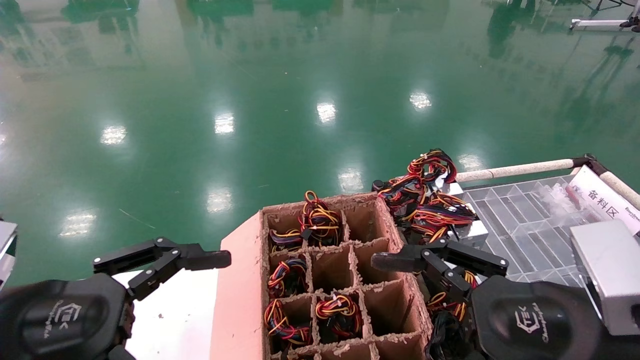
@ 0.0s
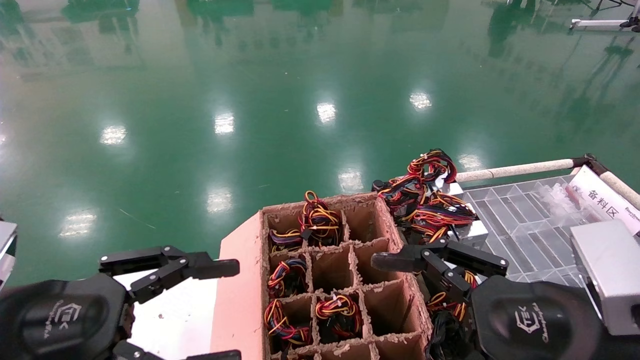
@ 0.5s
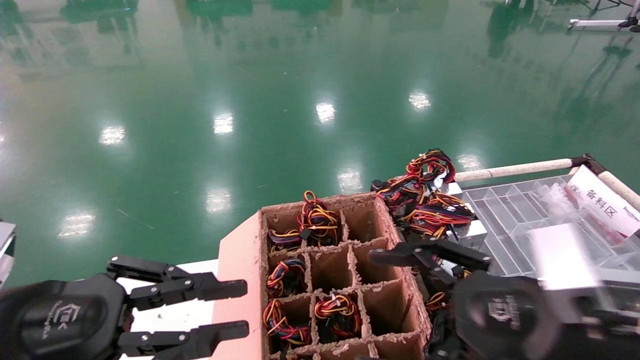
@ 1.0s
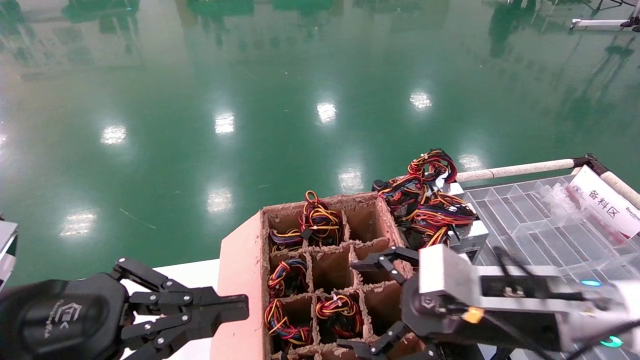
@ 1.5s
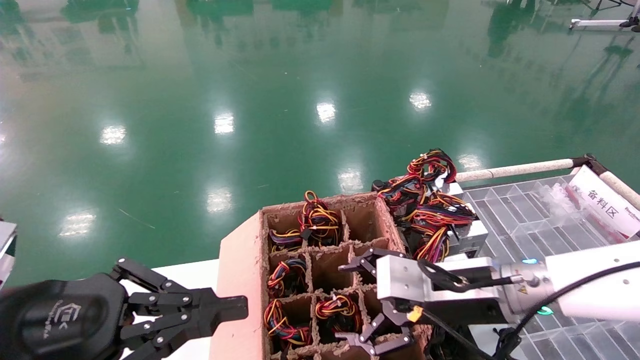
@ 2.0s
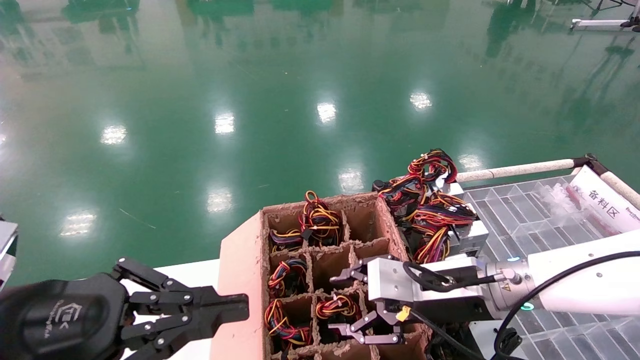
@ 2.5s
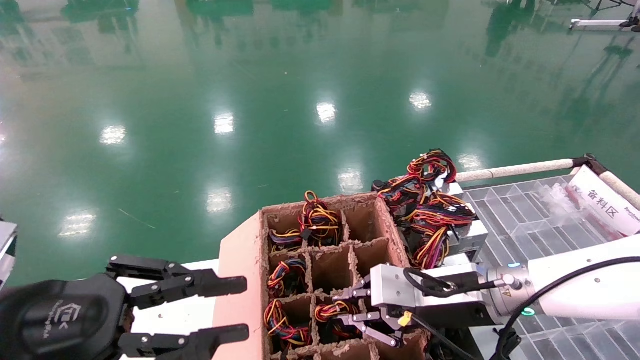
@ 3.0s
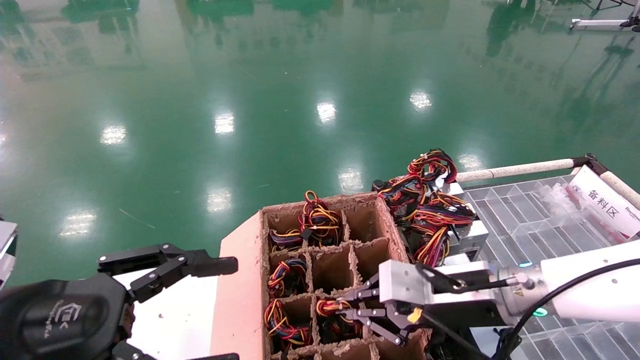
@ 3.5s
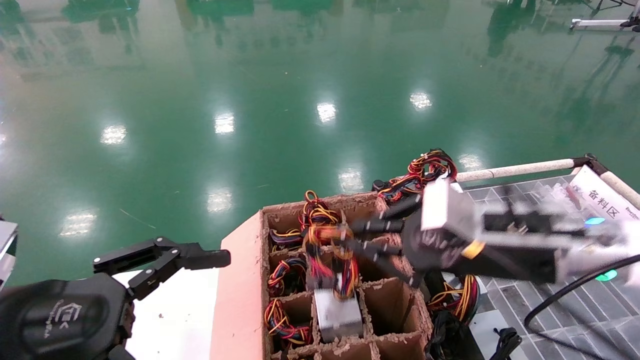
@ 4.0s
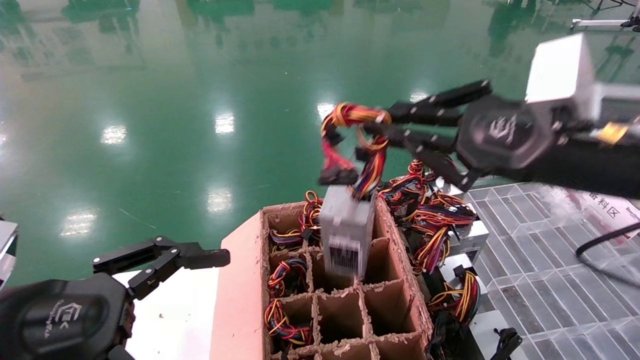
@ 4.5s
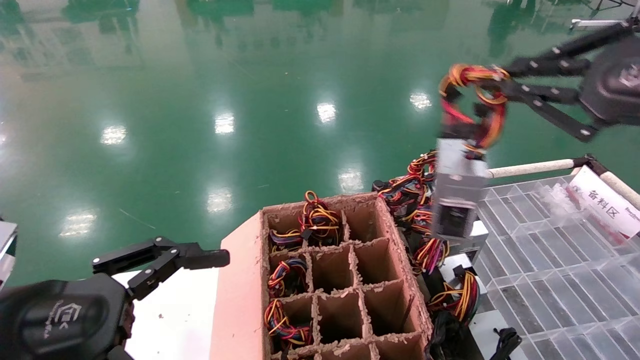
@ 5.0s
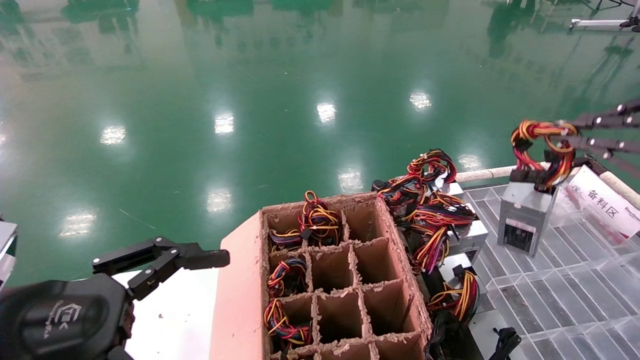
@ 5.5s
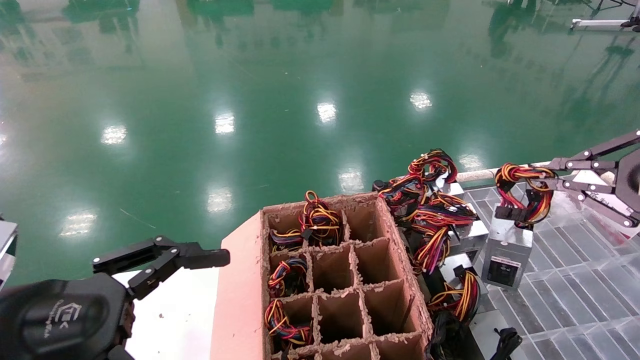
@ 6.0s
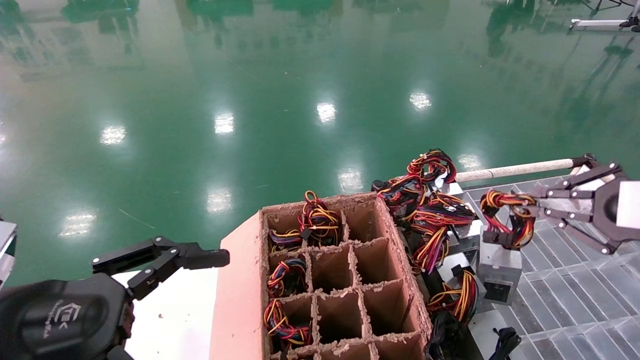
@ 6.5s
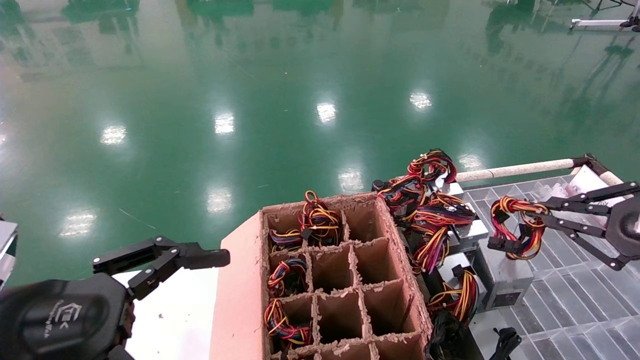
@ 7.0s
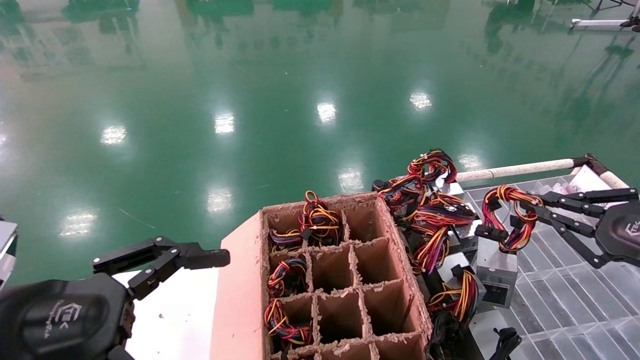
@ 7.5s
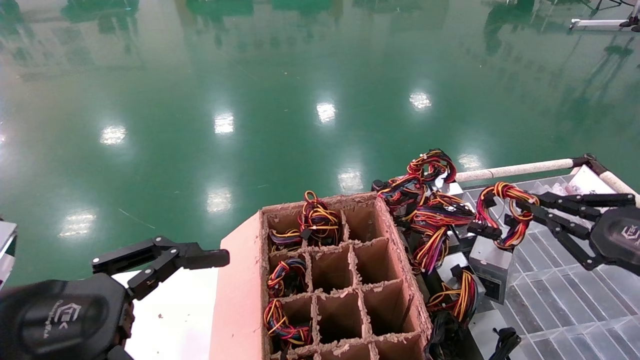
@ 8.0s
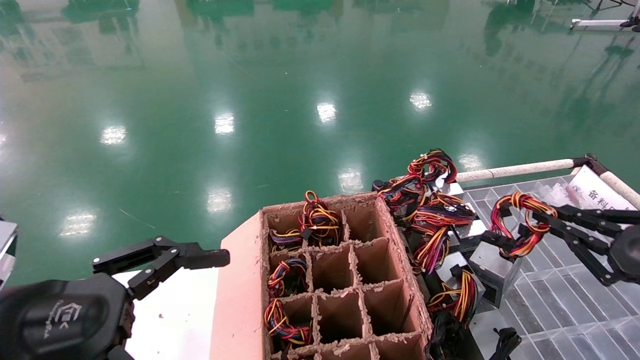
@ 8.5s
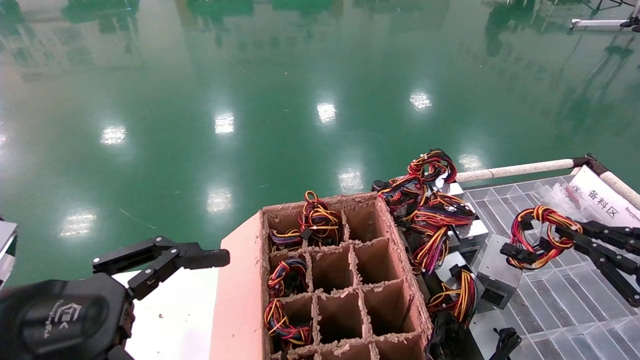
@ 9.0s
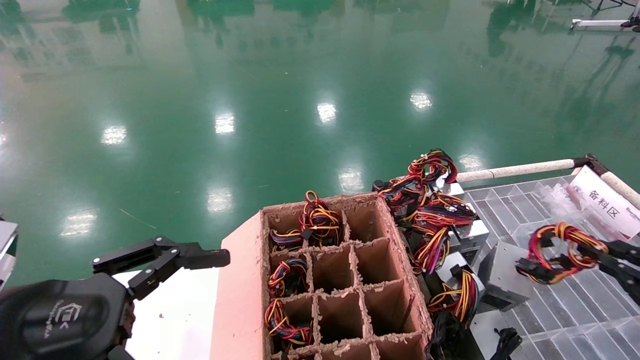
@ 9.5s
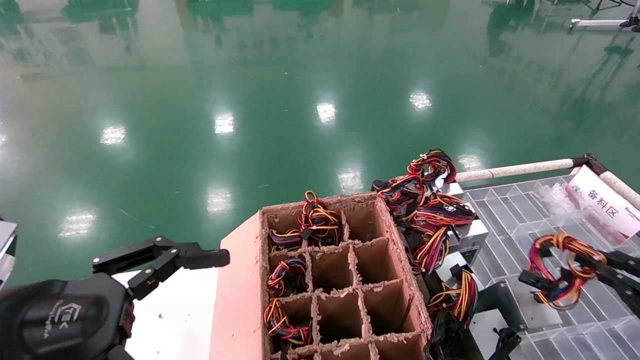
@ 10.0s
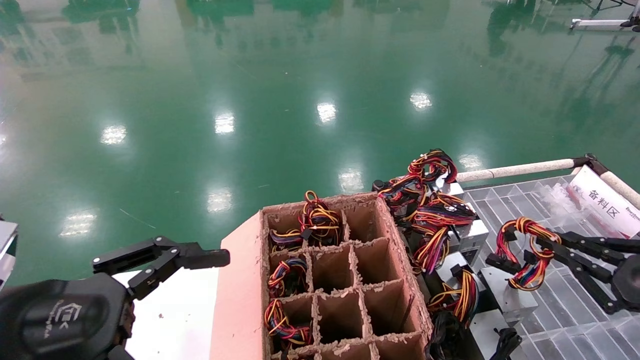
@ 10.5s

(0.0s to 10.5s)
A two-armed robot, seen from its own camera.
Step, 1.5s - 3.5s: Grab and lift the power supply from the large box.
0.0s - 2.0s: The right gripper is displaced forward by approximately 15 cm. The left gripper closes up.
2.0s - 4.0s: The left gripper opens up; the right gripper shifts approximately 10 cm upward, and closes up.
4.0s - 6.5s: The right gripper shifts roughly 20 cm to the right.
6.5s - 8.5s: The right gripper is displaced downward by approximately 10 cm.

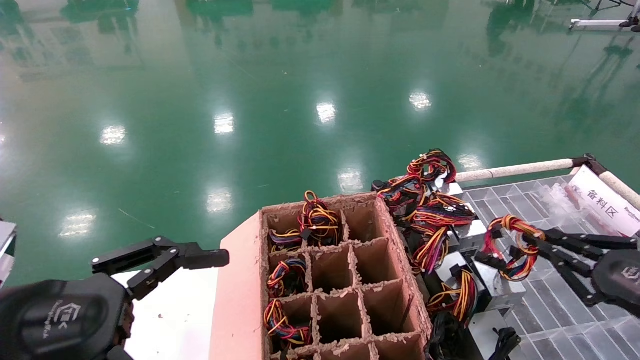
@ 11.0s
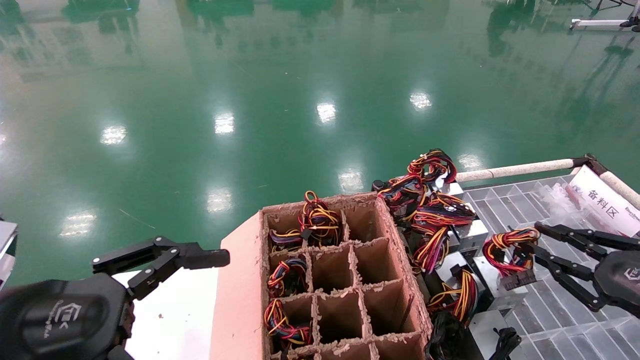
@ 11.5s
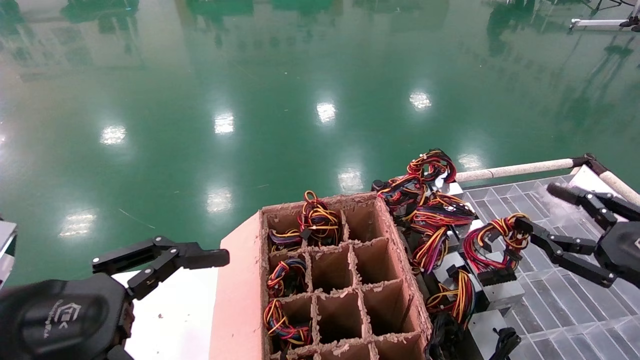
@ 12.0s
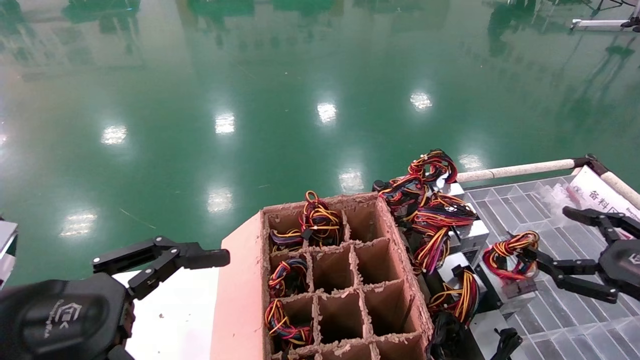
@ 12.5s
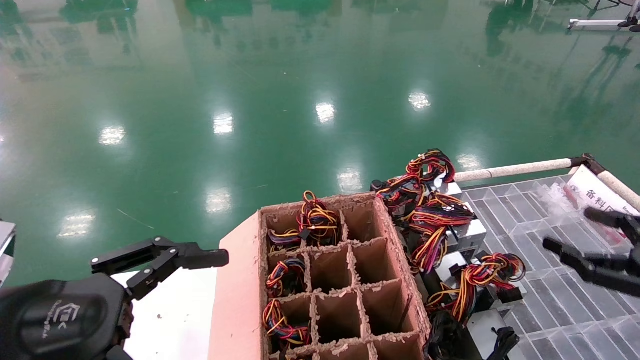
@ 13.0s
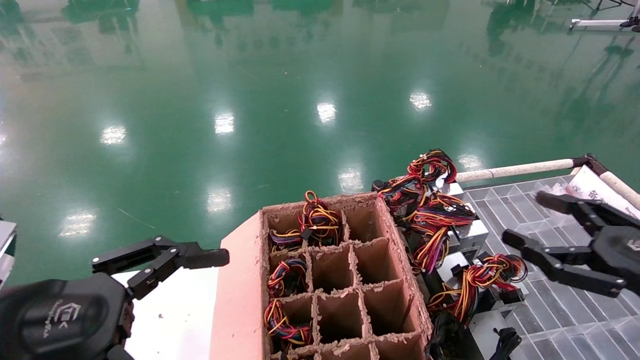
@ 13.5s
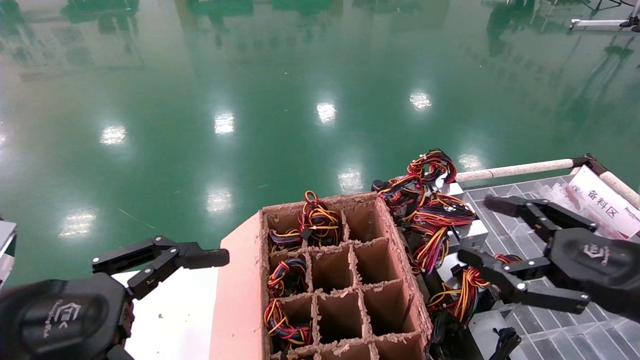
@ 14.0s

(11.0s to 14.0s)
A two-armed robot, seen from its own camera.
11.0s - 12.5s: The right gripper opens up.
12.5s - 14.0s: The right gripper moves to the left, roughly 10 cm.

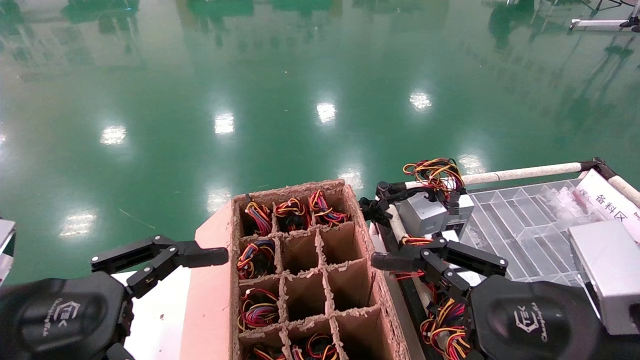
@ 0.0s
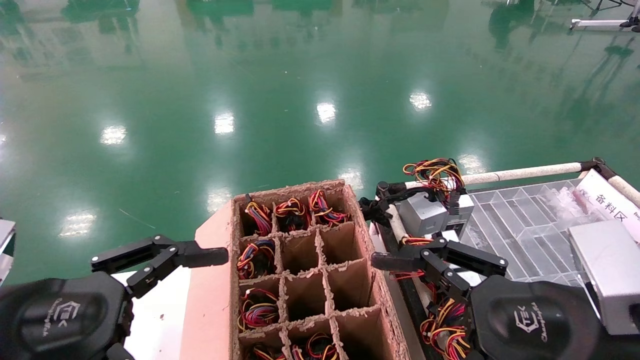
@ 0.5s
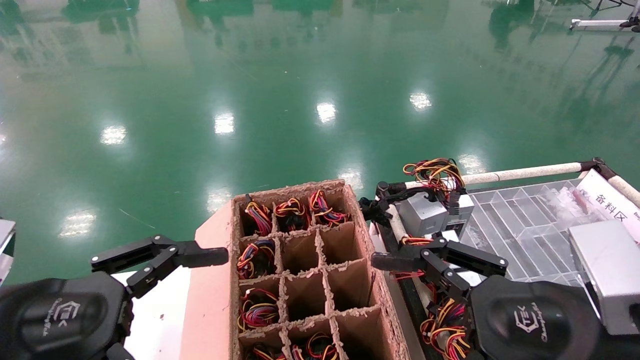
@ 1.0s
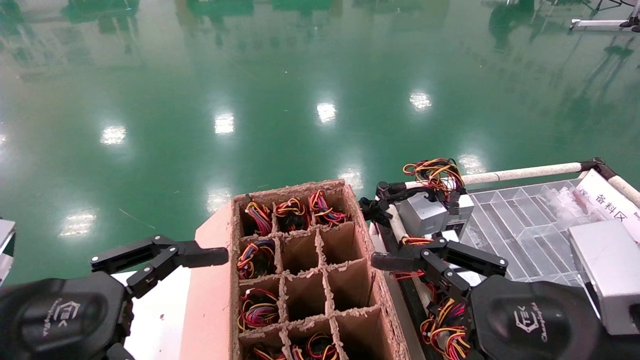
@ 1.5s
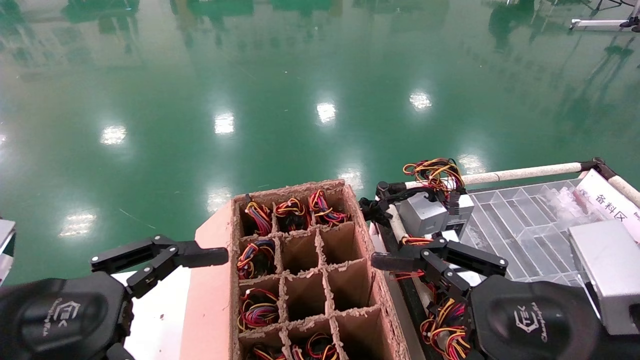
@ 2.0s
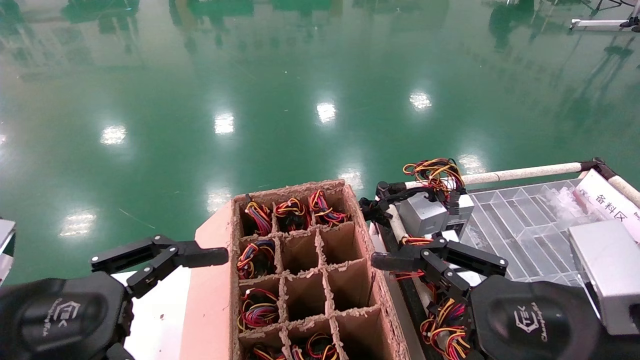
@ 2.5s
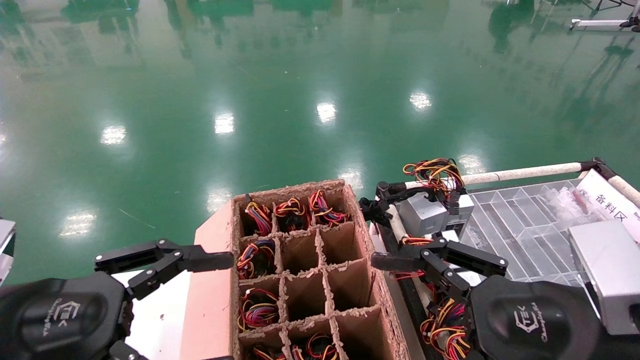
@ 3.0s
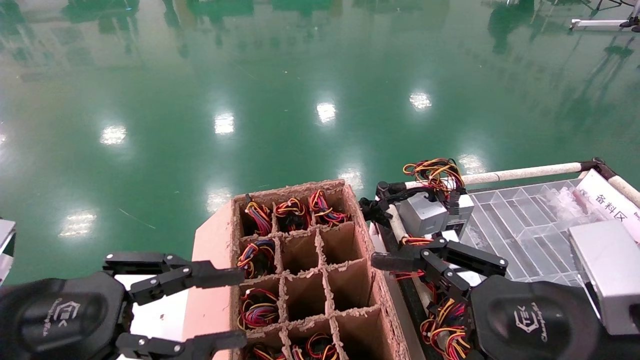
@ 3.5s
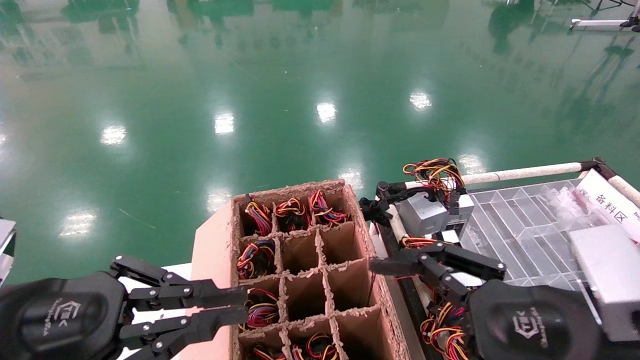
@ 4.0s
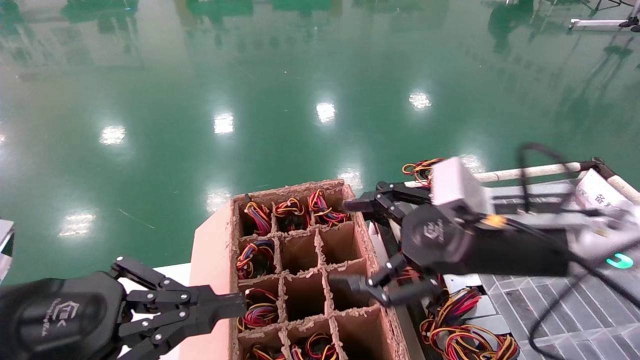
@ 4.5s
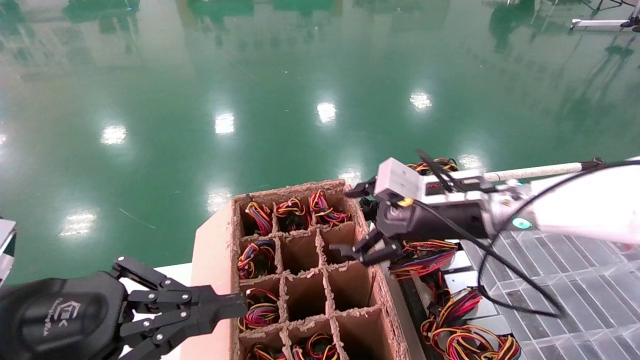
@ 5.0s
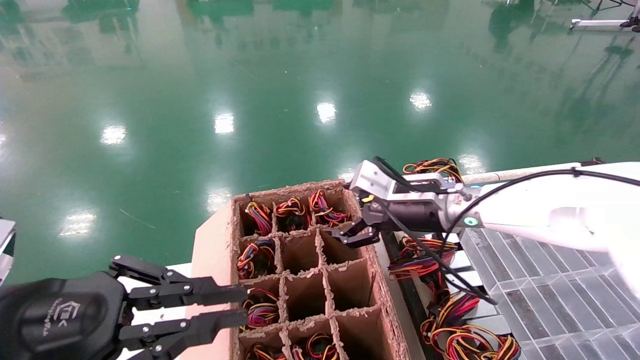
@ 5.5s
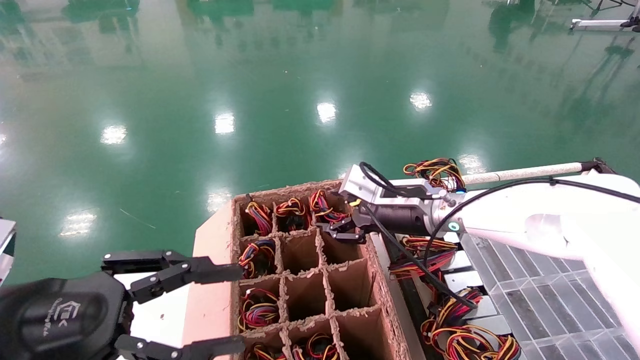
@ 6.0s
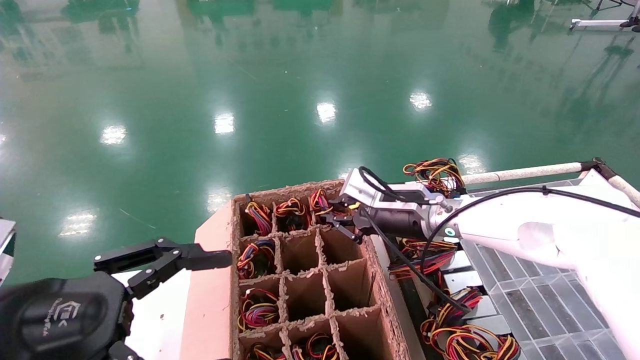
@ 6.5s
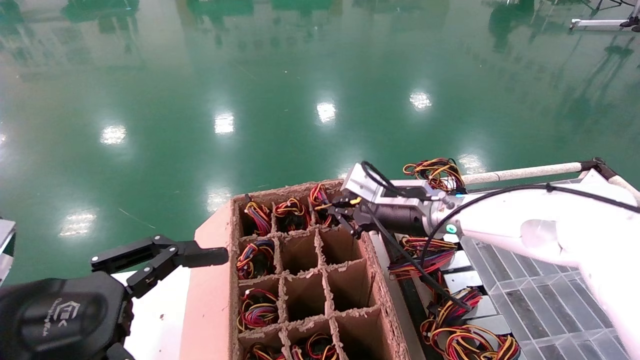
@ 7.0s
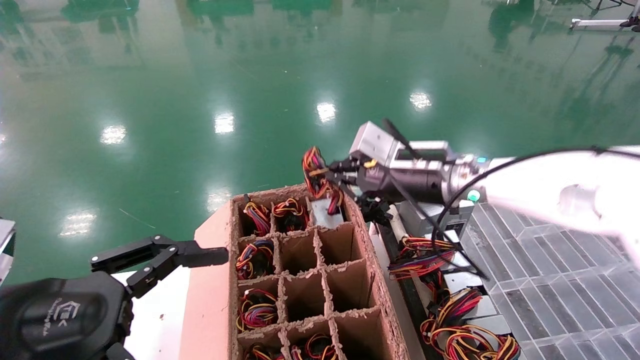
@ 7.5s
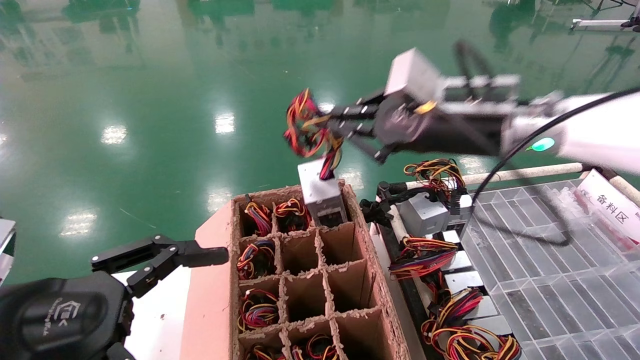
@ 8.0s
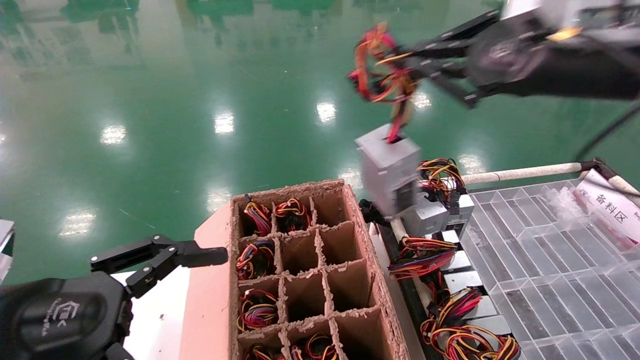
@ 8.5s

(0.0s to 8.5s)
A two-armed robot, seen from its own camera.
Step, 4.5s - 7.0s: Grab and lift the power supply from the large box.
0.0s - 2.0s: The two grippers keep their place.
2.0s - 4.0s: The left gripper closes its fingers.
4.0s - 6.5s: The left gripper opens. The right gripper shifts roughly 25 cm forward, and closes.
6.5s - 8.5s: The right gripper travels upward, backward and to the right by approximately 30 cm.
